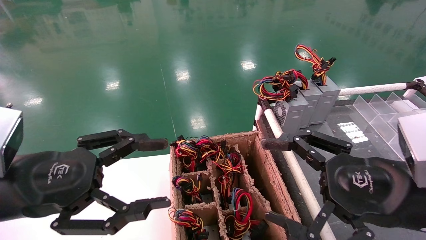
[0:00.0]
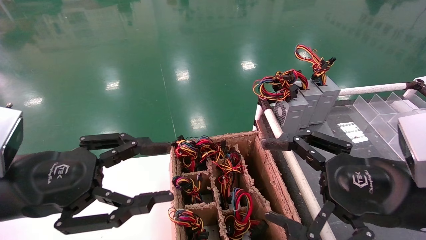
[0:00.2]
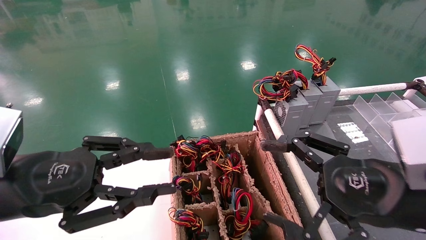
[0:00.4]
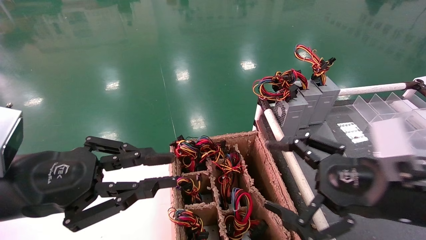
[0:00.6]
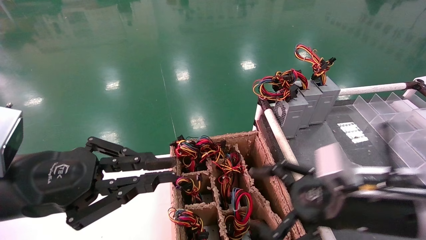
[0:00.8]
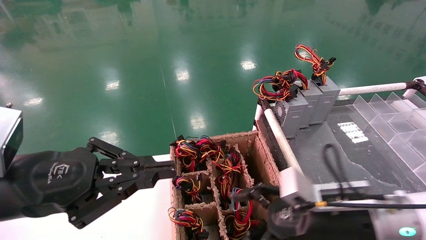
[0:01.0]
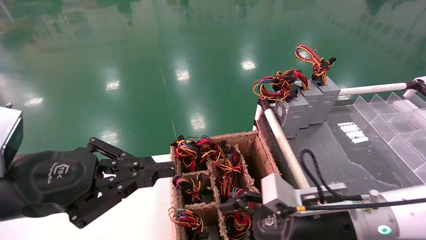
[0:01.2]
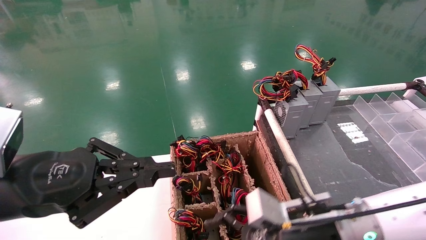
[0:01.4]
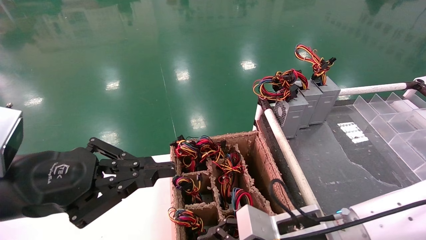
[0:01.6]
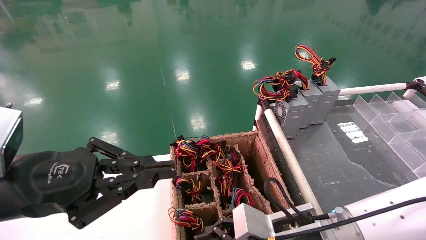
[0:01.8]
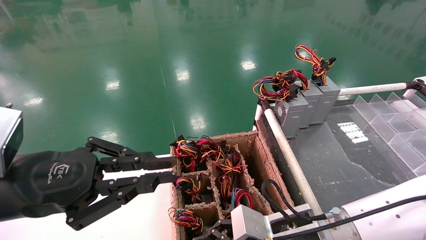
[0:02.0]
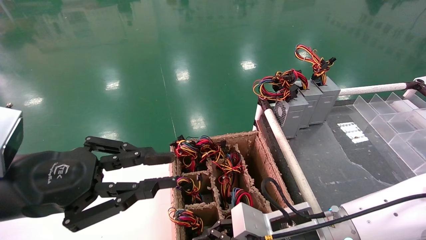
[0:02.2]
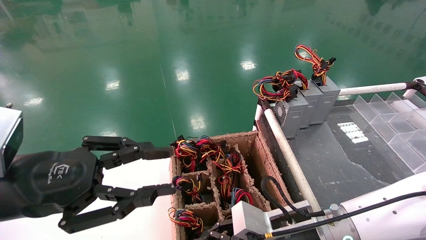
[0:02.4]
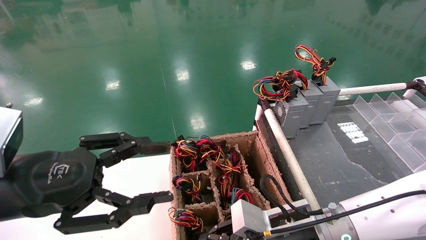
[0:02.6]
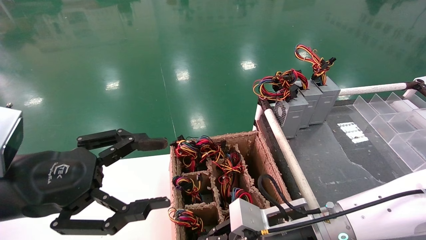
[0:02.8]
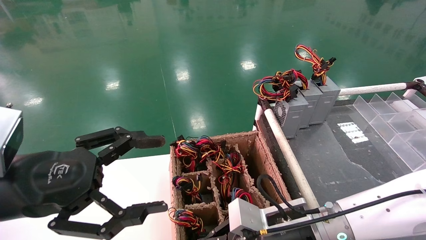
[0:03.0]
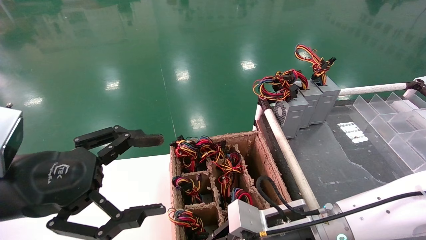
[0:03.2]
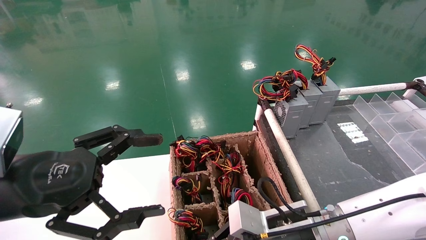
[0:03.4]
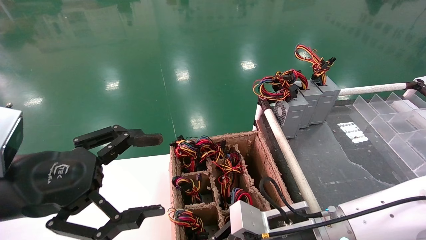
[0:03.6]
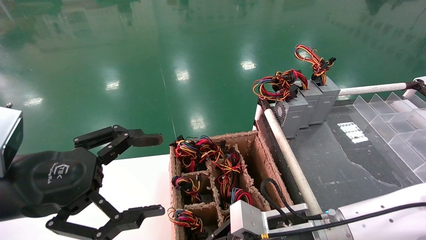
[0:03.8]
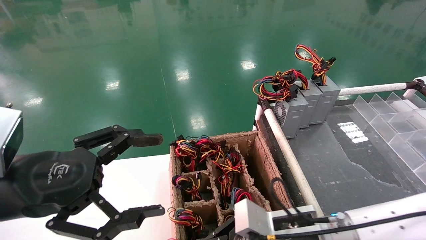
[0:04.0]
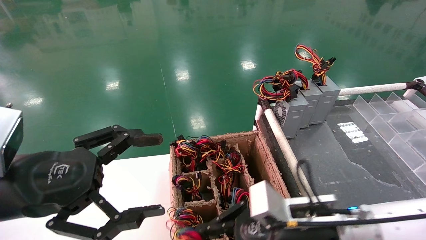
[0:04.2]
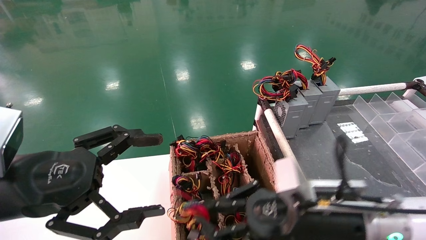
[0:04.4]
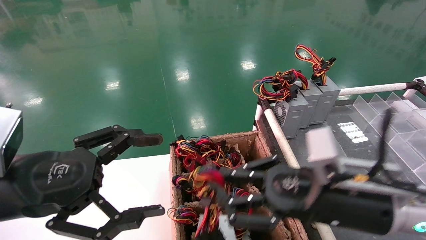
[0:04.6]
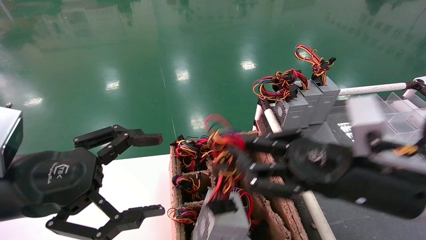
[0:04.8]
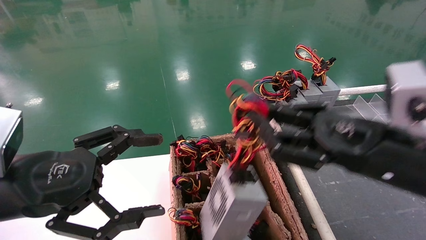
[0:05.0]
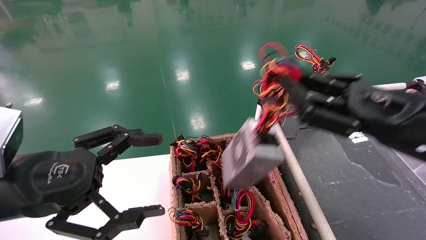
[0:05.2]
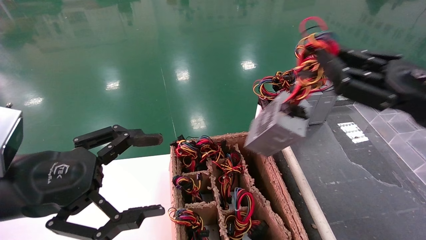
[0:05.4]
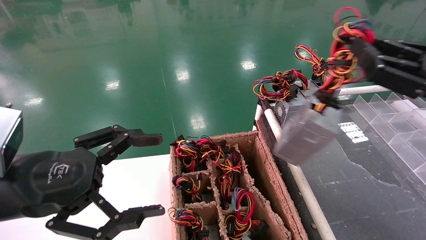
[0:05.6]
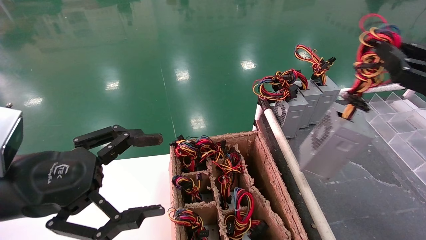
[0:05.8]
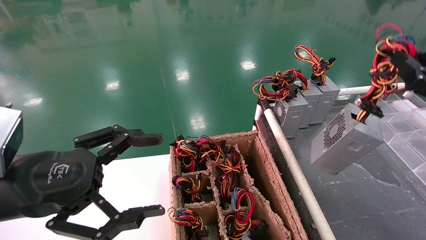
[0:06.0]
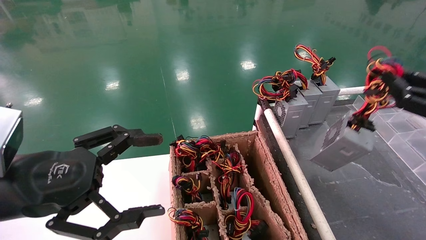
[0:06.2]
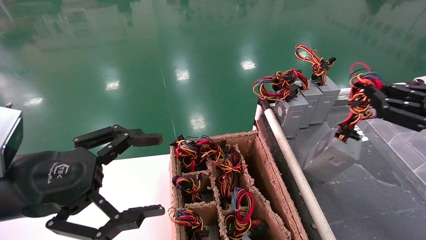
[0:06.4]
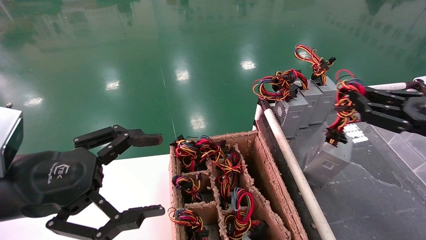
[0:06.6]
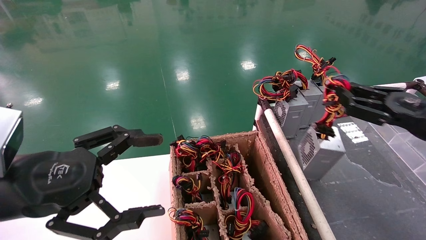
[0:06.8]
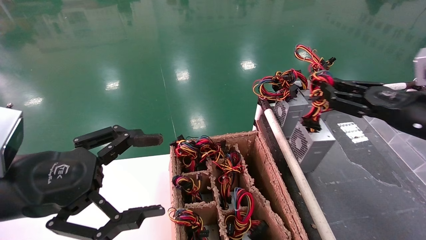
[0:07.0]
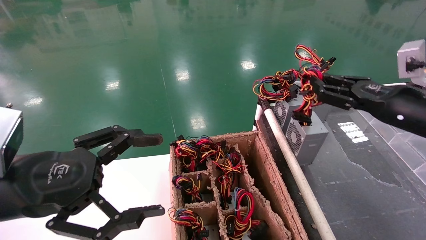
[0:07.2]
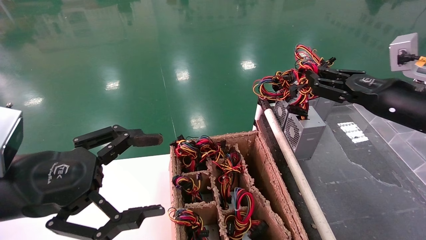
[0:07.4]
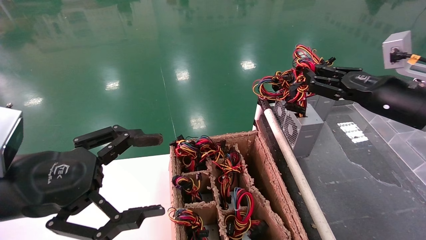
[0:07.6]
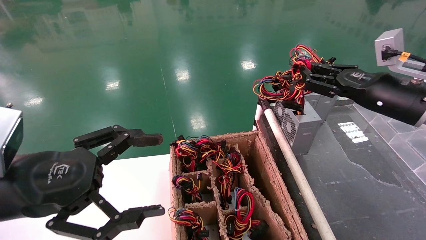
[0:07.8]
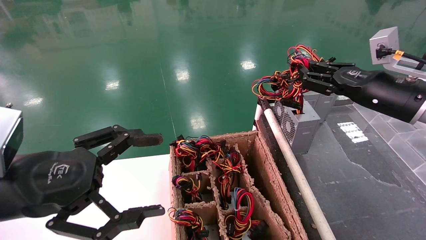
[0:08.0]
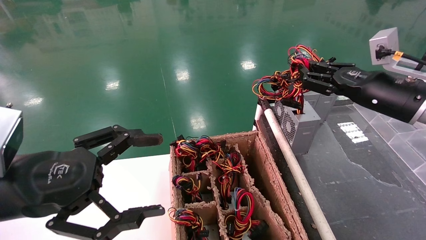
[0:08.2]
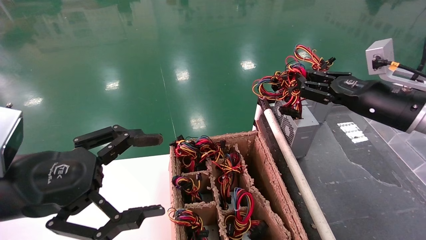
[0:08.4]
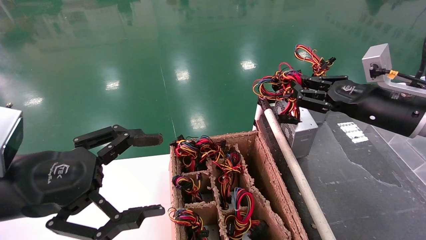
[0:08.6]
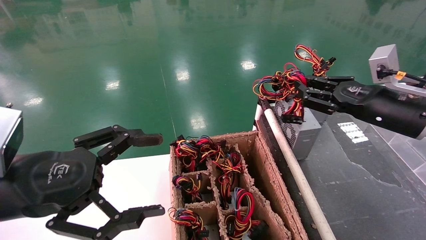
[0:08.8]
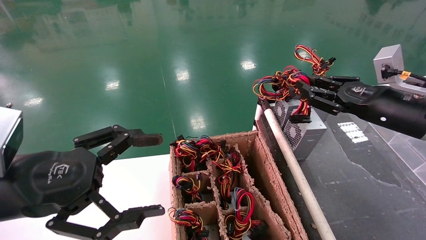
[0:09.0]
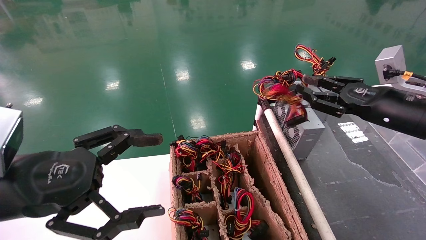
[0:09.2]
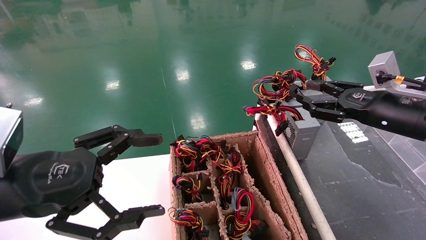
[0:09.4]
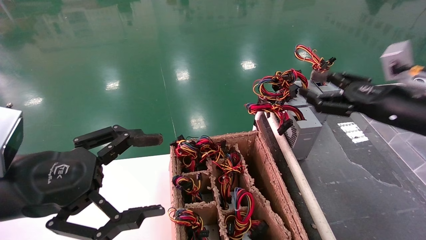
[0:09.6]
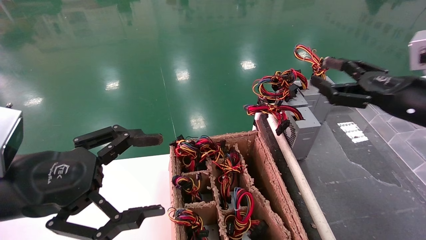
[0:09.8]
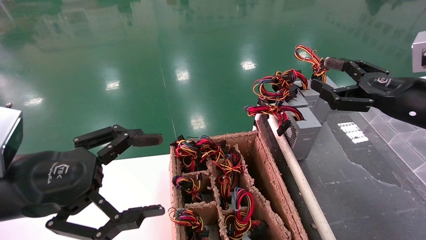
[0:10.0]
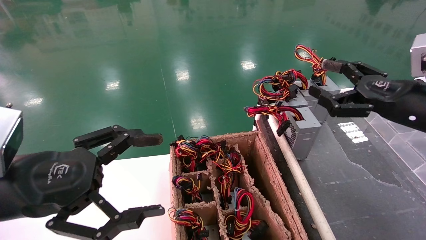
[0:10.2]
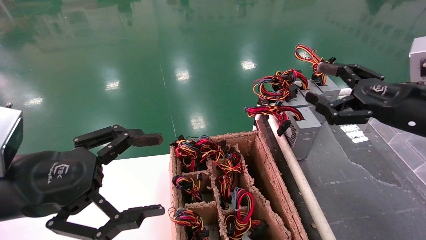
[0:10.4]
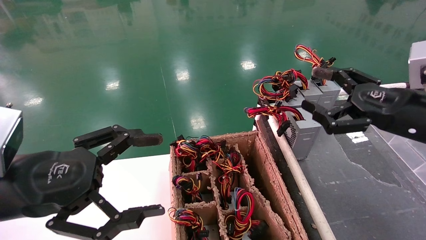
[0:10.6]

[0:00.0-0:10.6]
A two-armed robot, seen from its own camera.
Step, 0:01.0 to 0:03.2: Grab and lift the power supply from the large box.
Step, 0:03.4 to 0:09.0: Place the power supply on the operating table.
0:00.0 to 0:01.6: The right gripper goes about 20 cm downward, to the left and forward, while the left gripper closes its fingers.
0:01.6 to 0:03.0: The right gripper closes. The left gripper opens.
0:03.0 to 0:04.6: The right gripper moves upward and to the right, about 10 cm.
0:04.6 to 0:06.0: The right gripper shifts some 25 cm to the right and upward.
0:06.0 to 0:07.6: The right gripper travels forward and to the left by some 15 cm.
0:07.6 to 0:09.0: The grippers make only small movements.
0:09.0 to 0:10.6: The right gripper heads backward, covering approximately 5 cm, and opens up.
